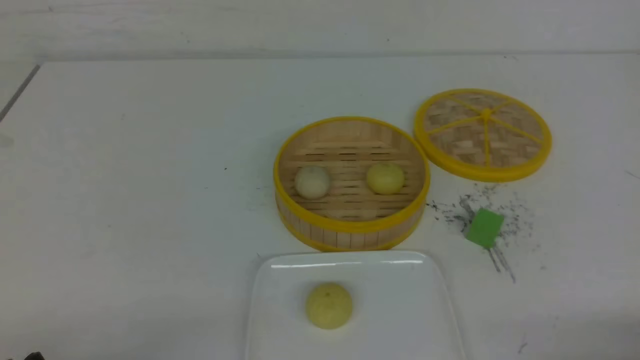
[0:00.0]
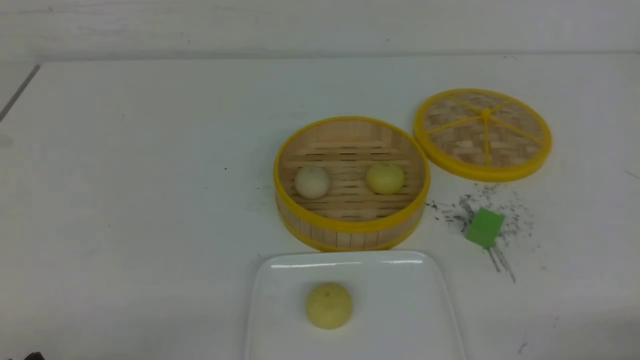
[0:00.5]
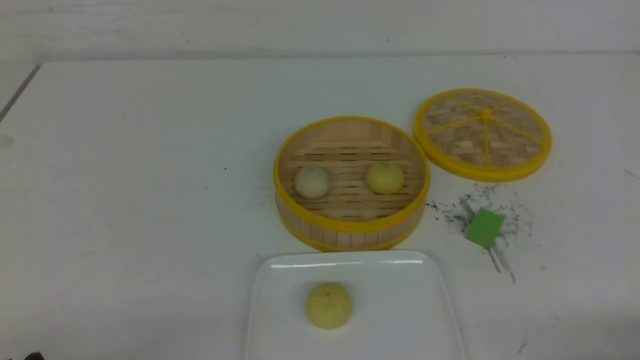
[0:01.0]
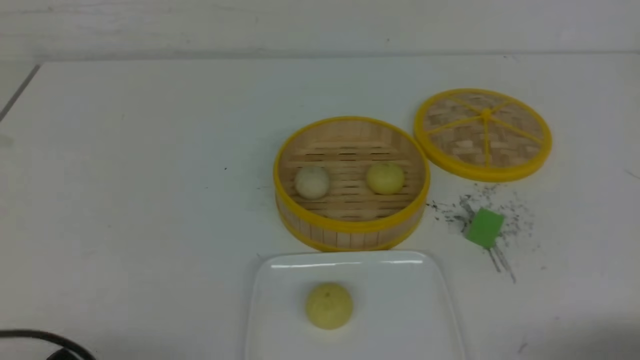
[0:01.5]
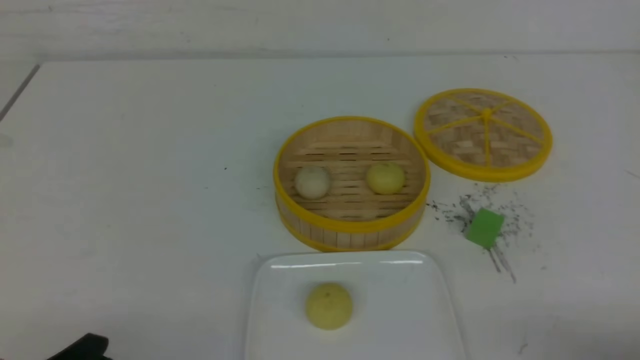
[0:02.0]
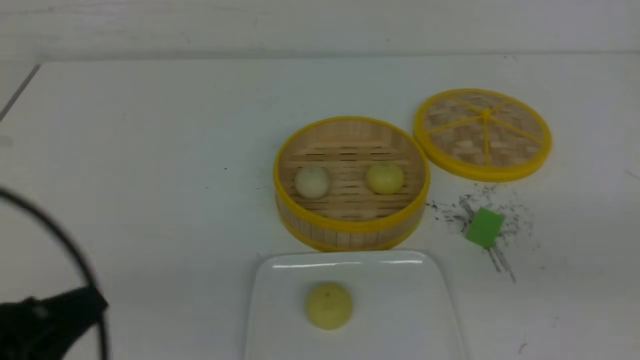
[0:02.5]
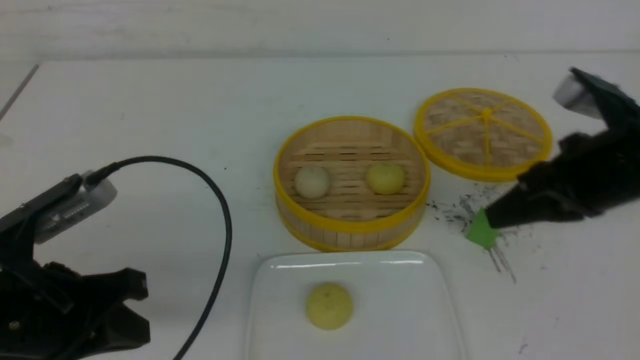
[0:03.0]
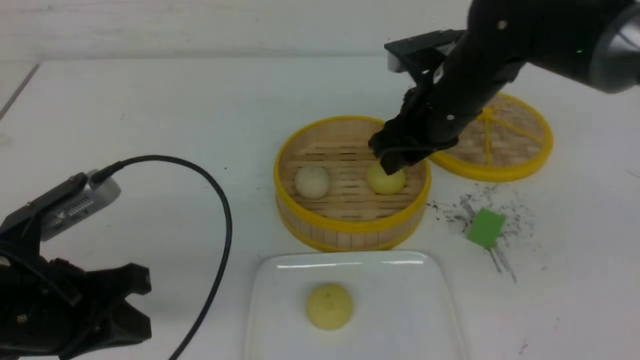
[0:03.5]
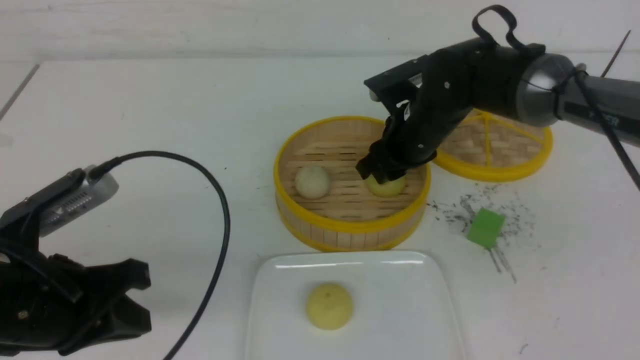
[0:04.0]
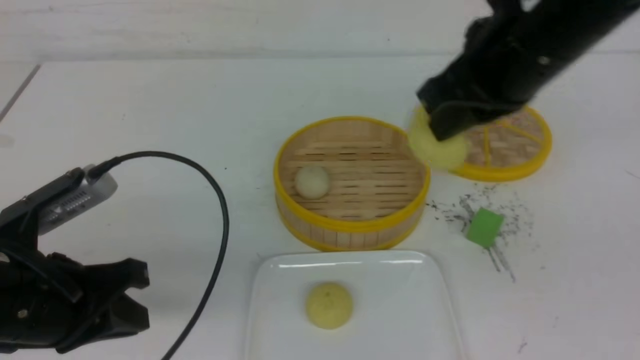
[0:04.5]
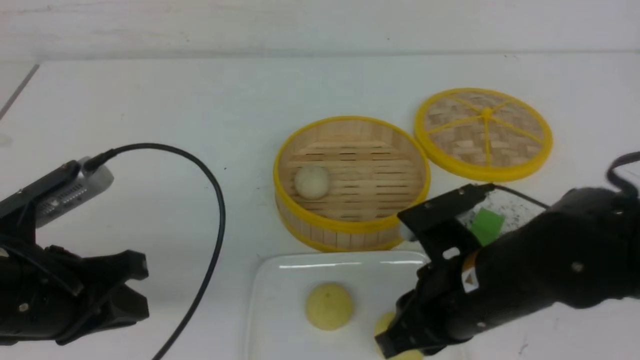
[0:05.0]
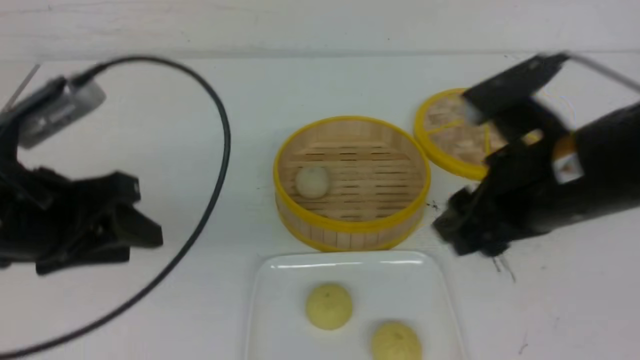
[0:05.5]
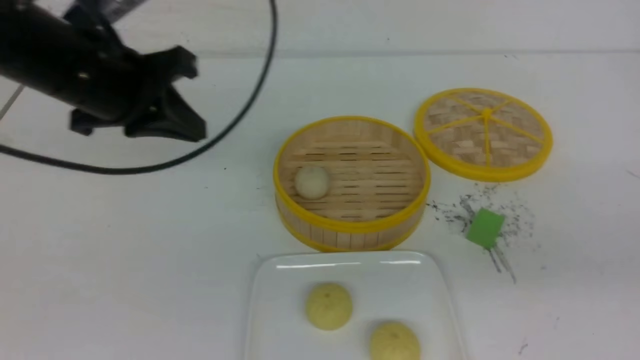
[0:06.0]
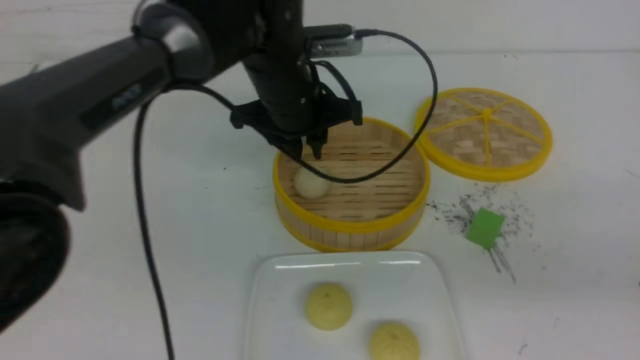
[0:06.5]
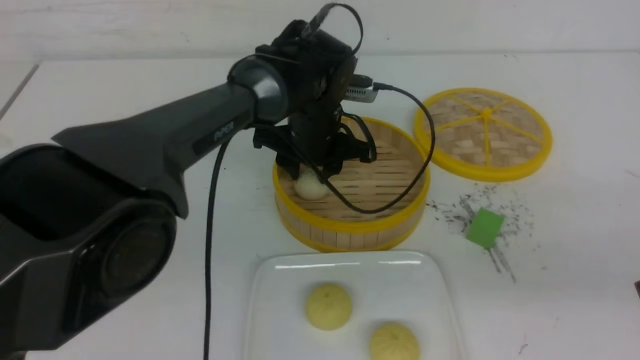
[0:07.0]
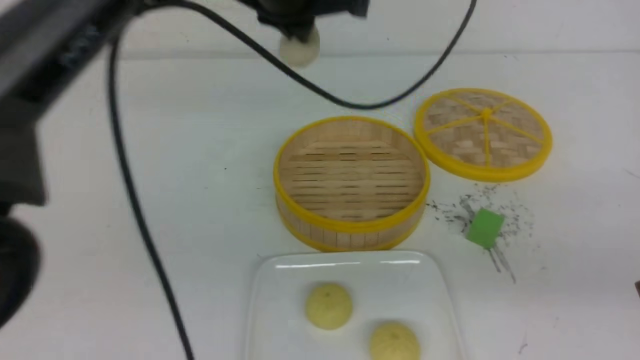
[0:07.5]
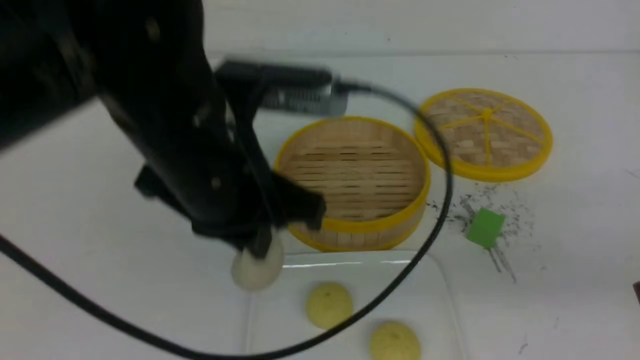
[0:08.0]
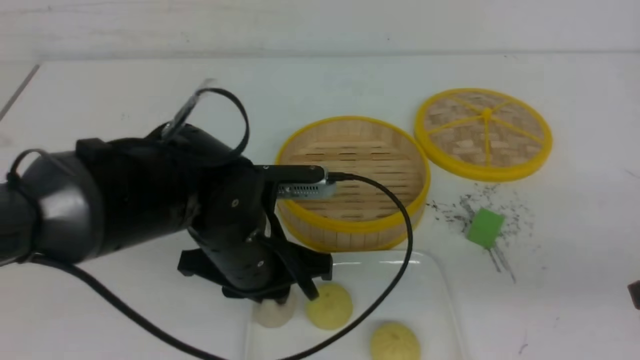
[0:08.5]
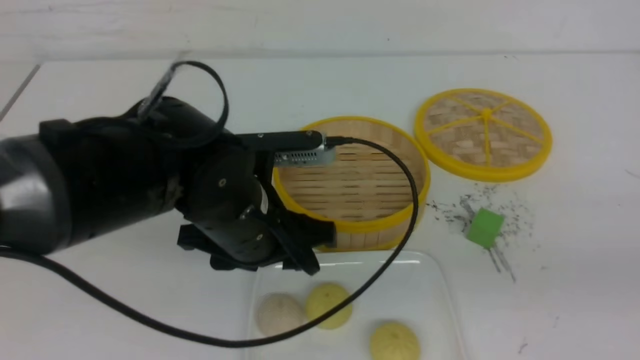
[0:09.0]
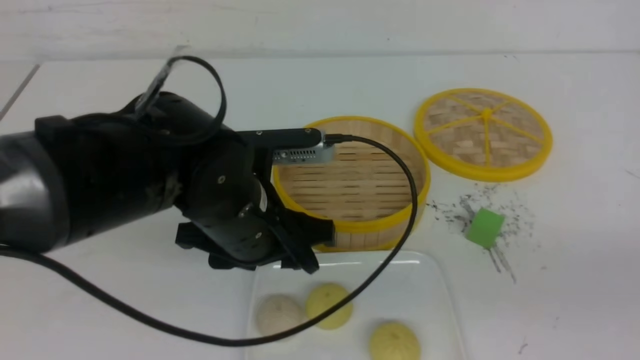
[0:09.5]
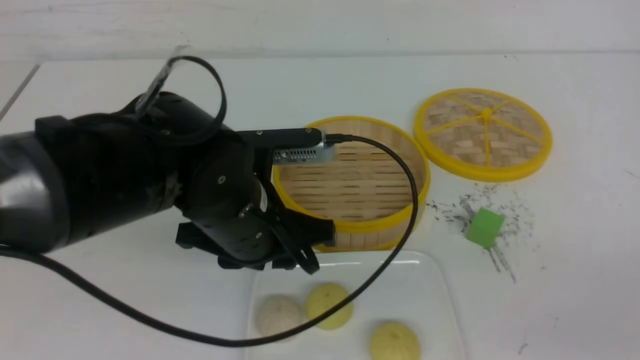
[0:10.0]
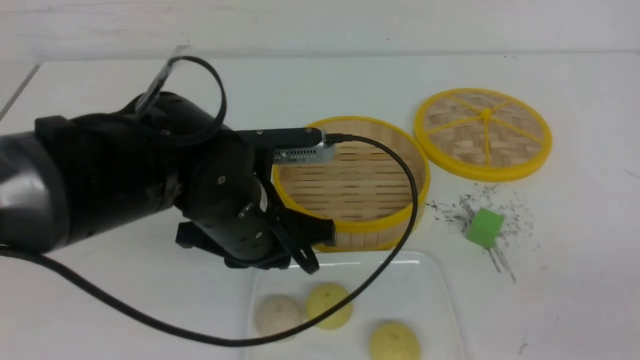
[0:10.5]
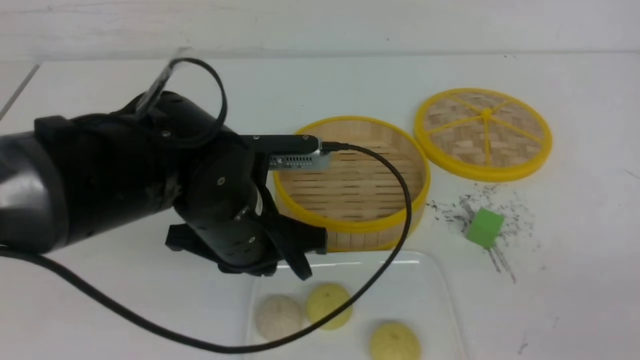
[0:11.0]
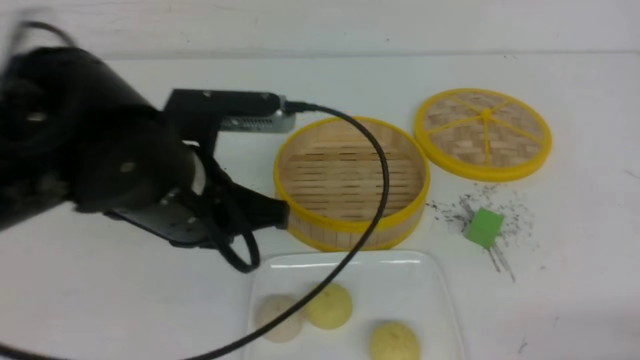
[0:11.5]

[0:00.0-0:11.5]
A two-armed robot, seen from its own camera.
Step, 0:00.0 to 0:04.0: use the right arm to grab the steamed stuffed bun that is closest to it.
Step, 0:04.5 to 0:05.0: use the right arm to put the steamed stuffed bun into the plate.
Step, 0:05.5 to 0:07.0: use the left arm to grab the steamed stuffed bun that is closest to it.
Step, 0:07.5 to 0:08.5: use the left arm to put the steamed stuffed bun into the plate.
0:02.0 to 0:04.0: The right gripper moves forward and to the left, approximately 40 cm, and closes, then reopens, while the left gripper shifts roughly 15 cm forward and upward.
0:04.0 to 0:06.0: The right gripper moves backward and to the right, about 30 cm, and closes up; the left gripper heads forward and upward, covering approximately 15 cm, and opens, then closes again.
0:06.0 to 0:07.5: The left gripper goes approximately 15 cm to the right and upward, and opens, then closes again.
0:07.5 to 0:09.5: The left gripper heads downward and backward, covering approximately 20 cm, and opens its fingers, while the right gripper heads backward, covering about 10 cm.
0:09.5 to 0:11.5: The right gripper is displaced downward by some 10 cm. Meanwhile the left gripper is displaced upward by about 5 cm, and closes.

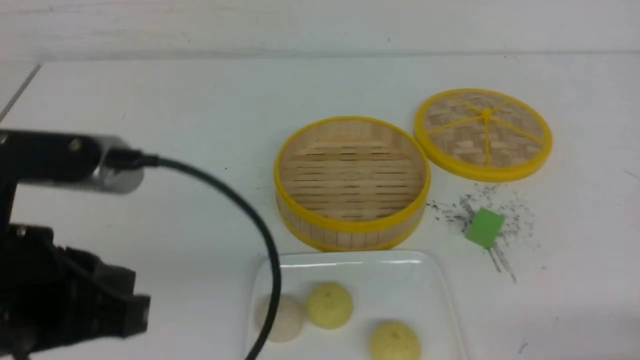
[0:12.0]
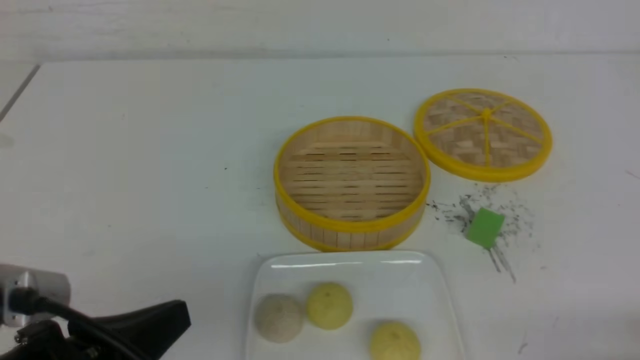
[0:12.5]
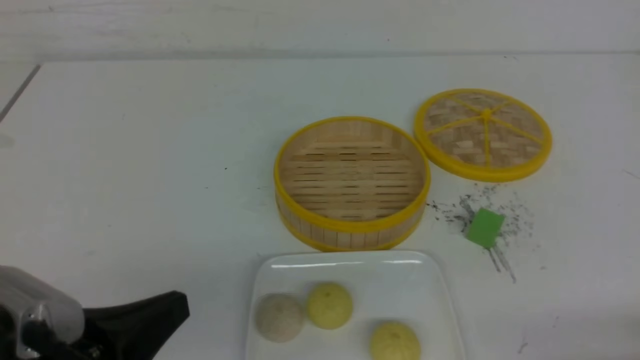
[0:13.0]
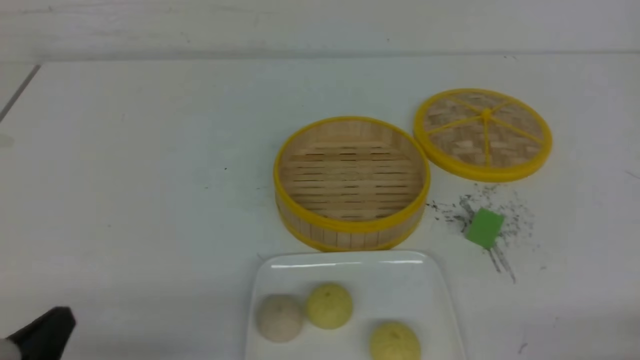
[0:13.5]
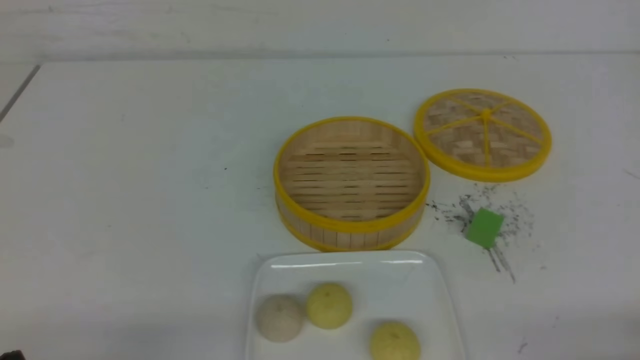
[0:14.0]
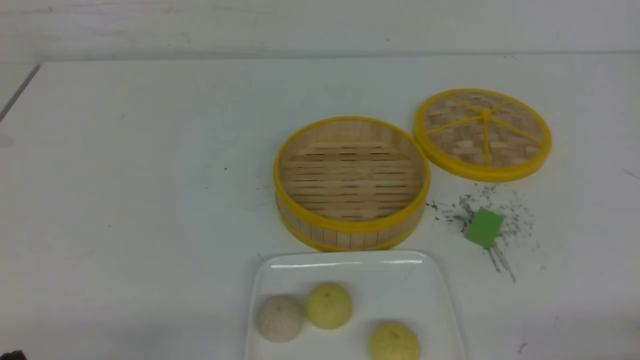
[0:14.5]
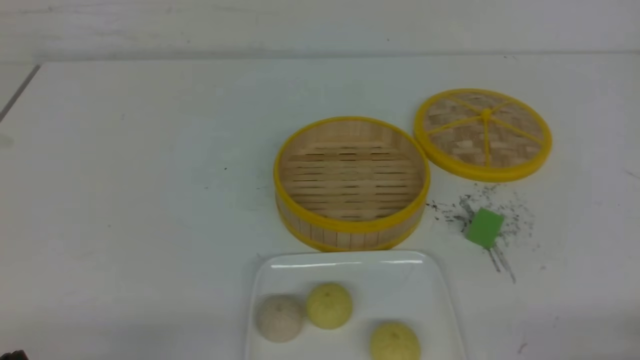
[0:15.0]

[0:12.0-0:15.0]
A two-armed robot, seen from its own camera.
0:12.0 to 0:13.5: The left gripper is displaced downward and to the left by about 15 cm.
0:13.5 to 0:15.0: The grippers make only small movements.
